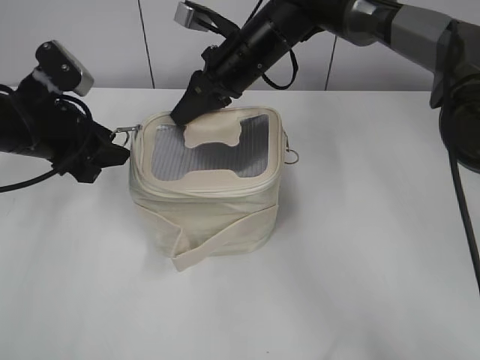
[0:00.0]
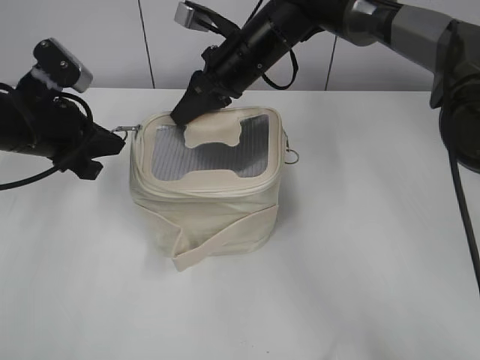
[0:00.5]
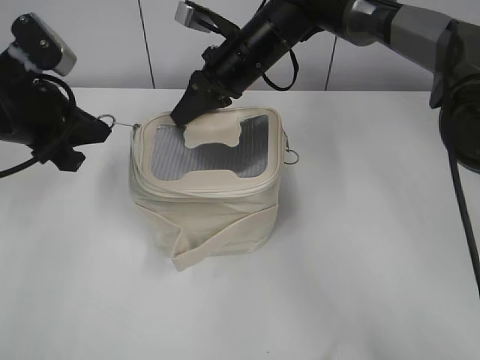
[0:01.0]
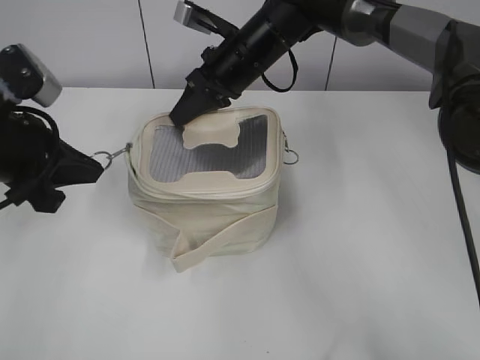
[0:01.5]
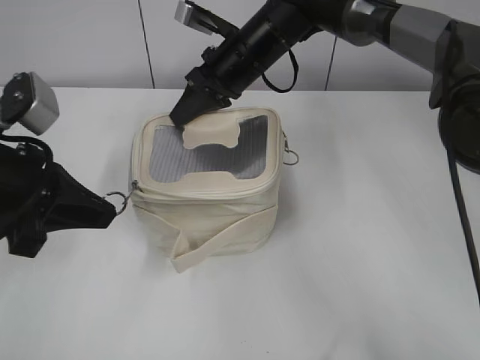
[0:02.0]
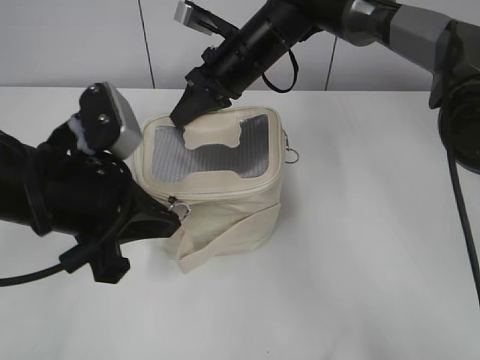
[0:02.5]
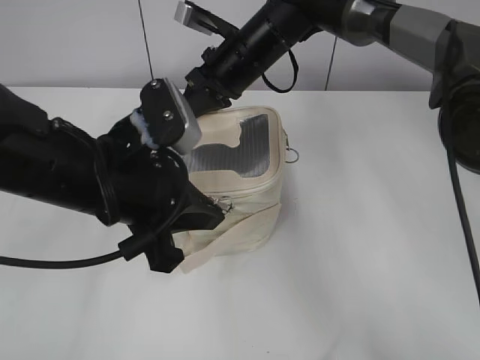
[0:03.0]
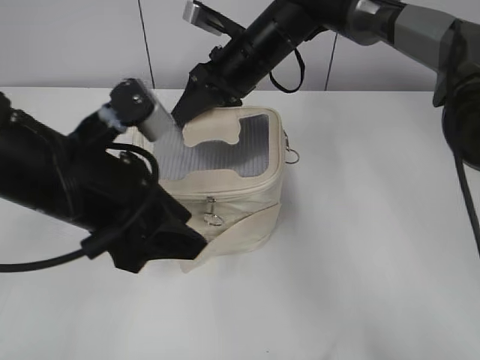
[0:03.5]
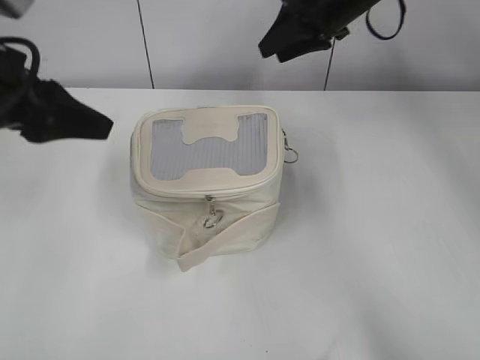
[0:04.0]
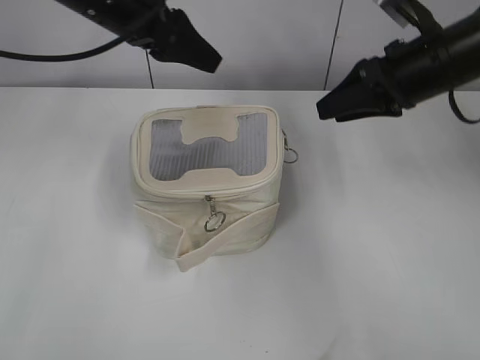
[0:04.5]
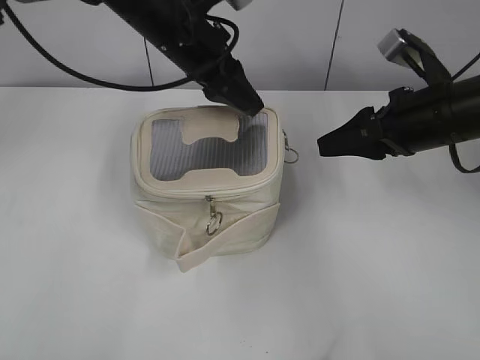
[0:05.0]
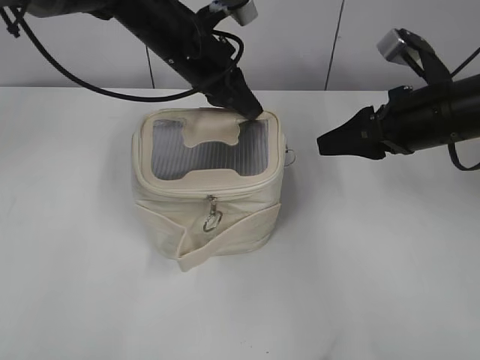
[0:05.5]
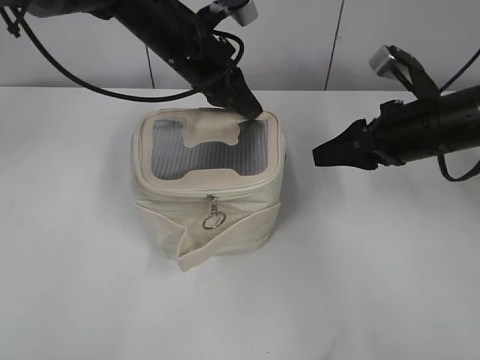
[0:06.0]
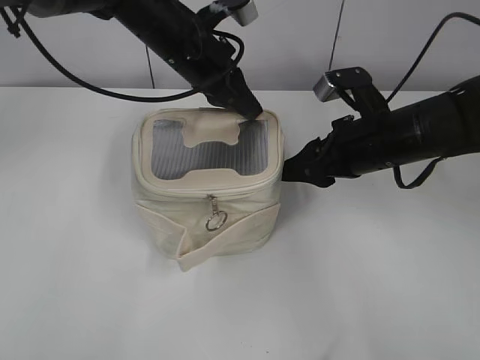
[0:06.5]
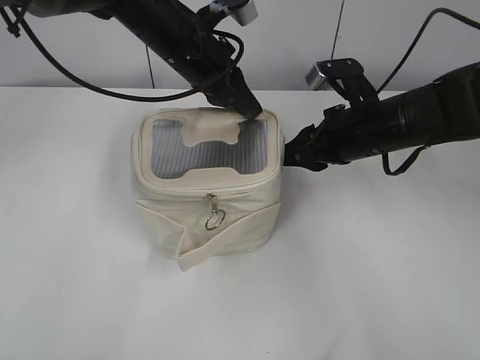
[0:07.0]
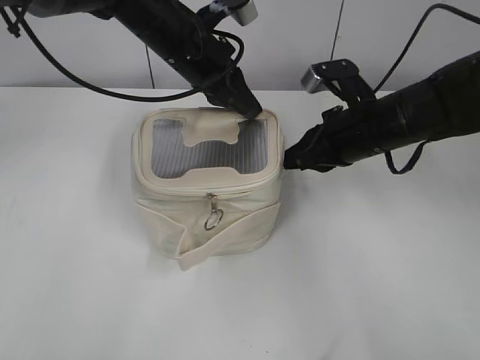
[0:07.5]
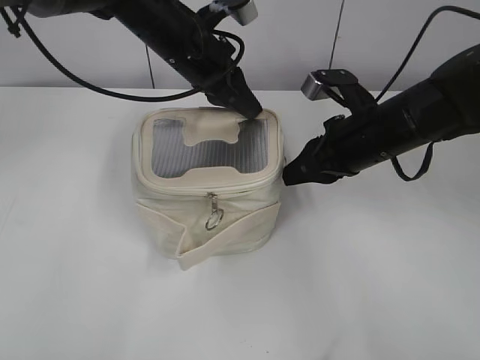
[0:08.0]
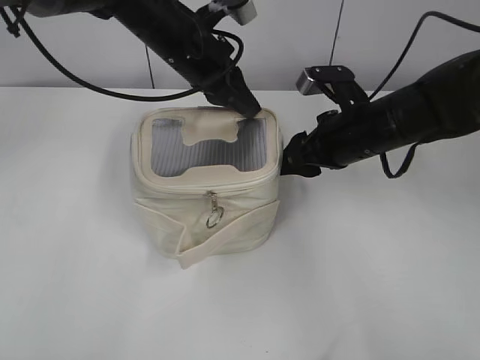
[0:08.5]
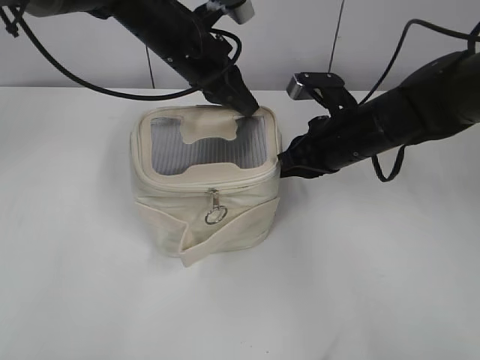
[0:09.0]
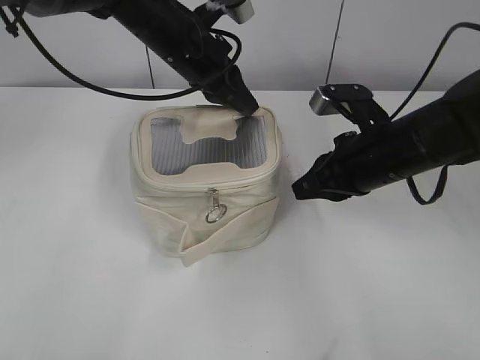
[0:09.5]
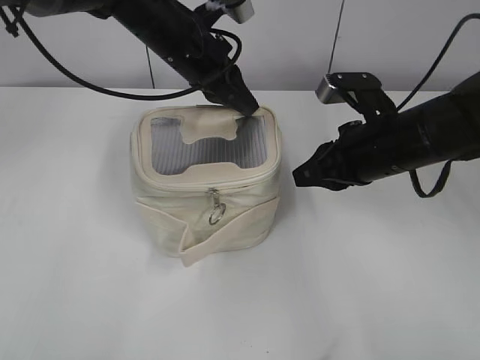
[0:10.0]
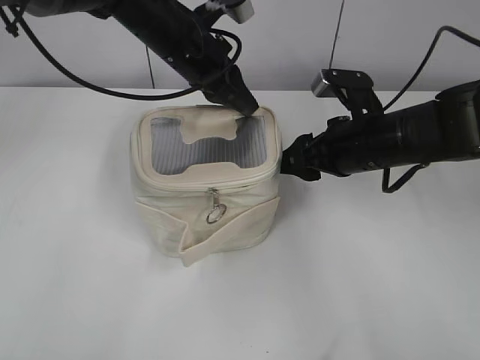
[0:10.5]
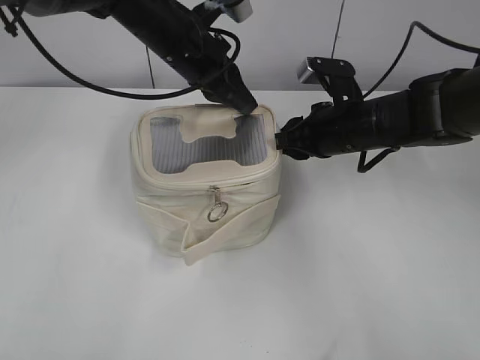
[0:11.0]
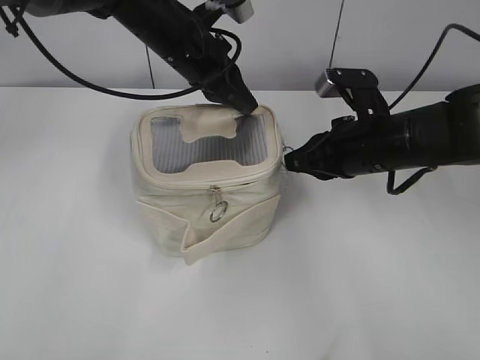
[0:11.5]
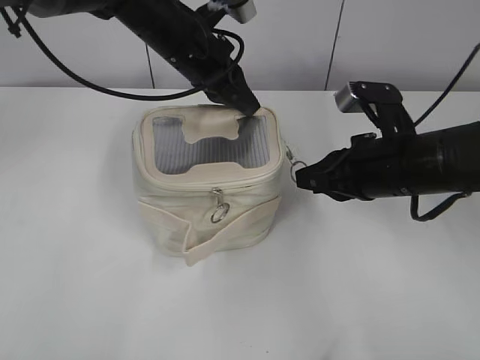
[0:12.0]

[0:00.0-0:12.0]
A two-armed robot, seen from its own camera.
Step, 0:00.0 to 0:03.0: Zip up the bag with your left hand.
0:00.0 to 0:02.0: The left gripper goes about 10 cm backward, and closes.
0:02.0 to 0:04.0: The left gripper heads upward, covering about 5 cm, reaches about 10 cm to the right, then returns, and opens up, while the right gripper shifts roughly 15 cm to the right and upward, and opens up.
0:04.0 to 0:06.0: The right gripper moves backward, to the right and downward, roughly 20 cm. Meanwhile the left gripper is displaced to the right and forward by roughly 25 cm, and closes its fingers.
0:06.0 to 0:08.0: The right gripper travels to the left by roughly 5 cm, and closes up.
0:08.0 to 0:10.0: The right gripper opens, then closes again.
0:10.0 to 0:12.0: The right gripper goes forward and returns, about 5 cm each way, and opens, then closes again.

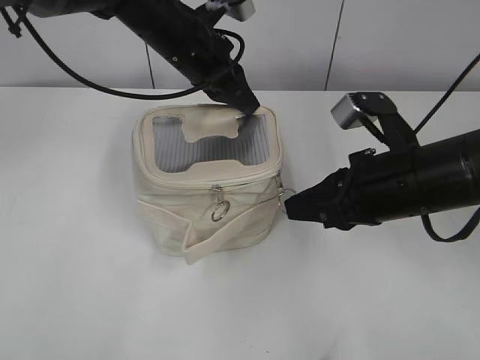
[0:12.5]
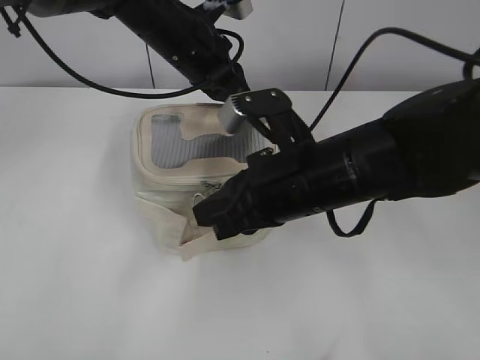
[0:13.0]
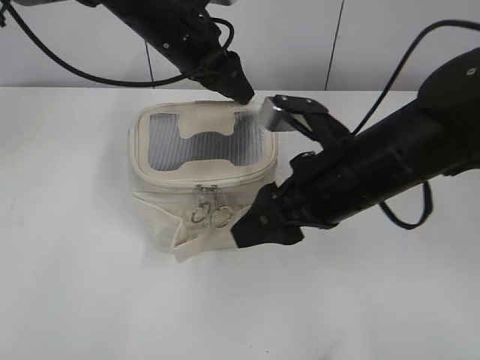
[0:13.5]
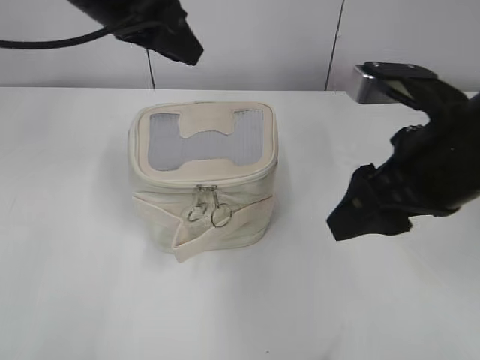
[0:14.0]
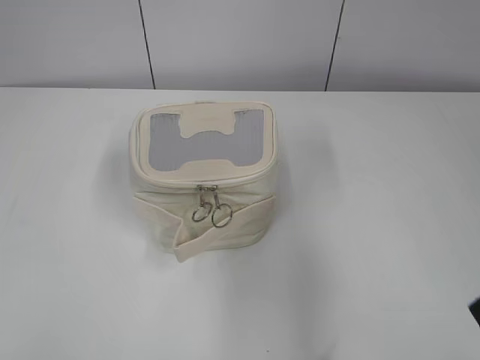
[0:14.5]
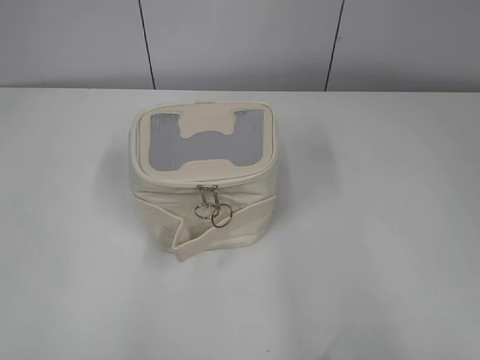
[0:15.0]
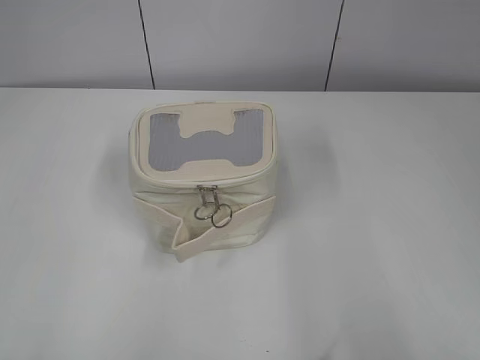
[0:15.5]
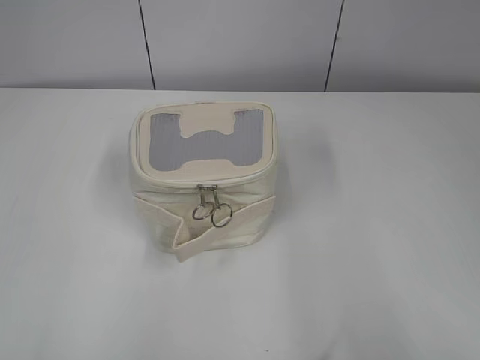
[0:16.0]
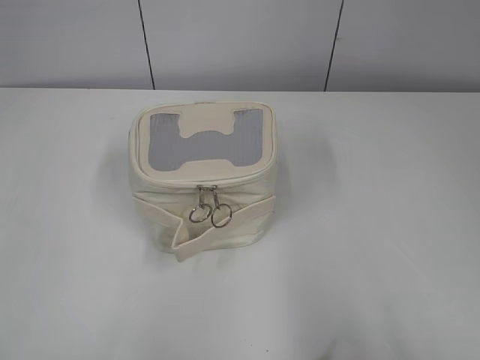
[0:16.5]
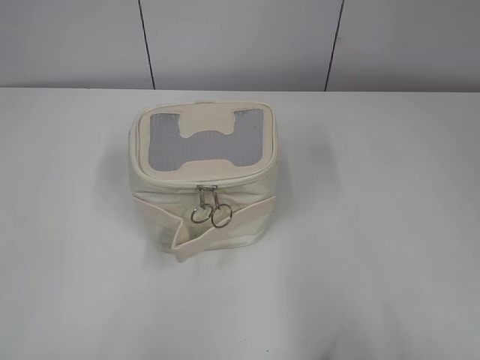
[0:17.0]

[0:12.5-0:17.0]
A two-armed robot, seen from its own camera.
0:12.5 to 0:14.5: The right gripper goes approximately 20 cm backward, upward and to the right, and opens; the left gripper heads backward and to the left, covering some 35 cm, and opens its fingers.
0:14.5 to 0:17.0: The right gripper heads backward and to the right, covering some 15 cm. Meanwhile the left gripper shifts about 15 cm backward, to the left and downward.

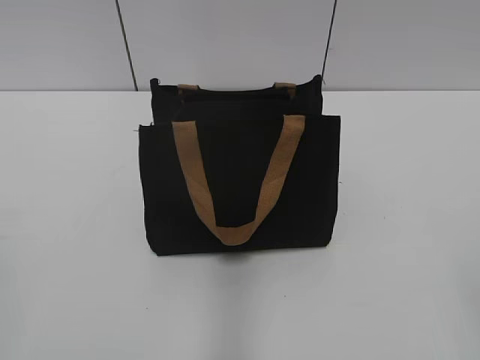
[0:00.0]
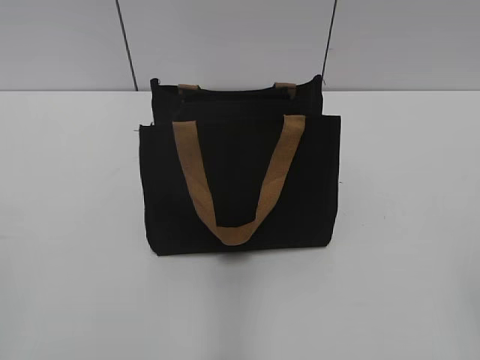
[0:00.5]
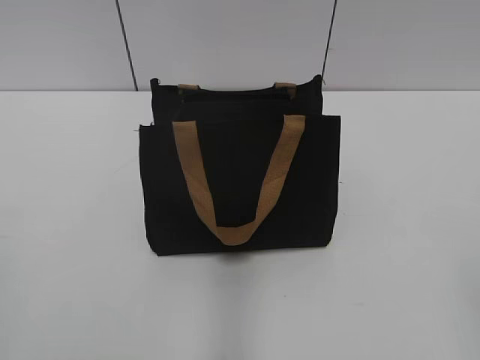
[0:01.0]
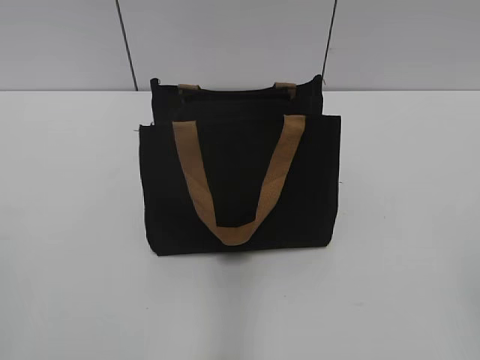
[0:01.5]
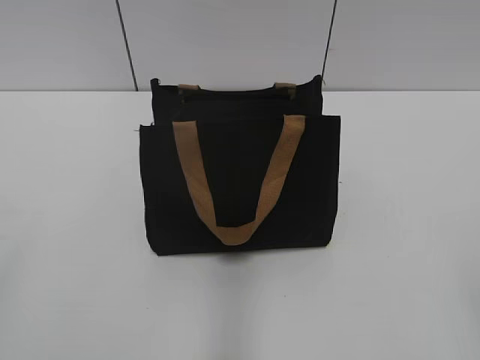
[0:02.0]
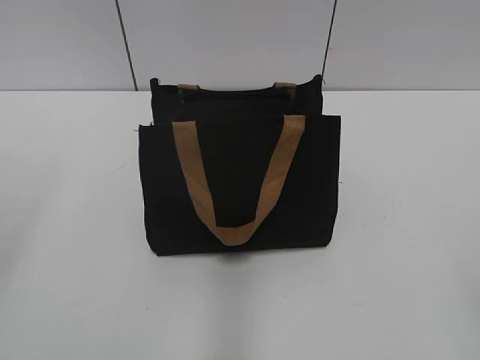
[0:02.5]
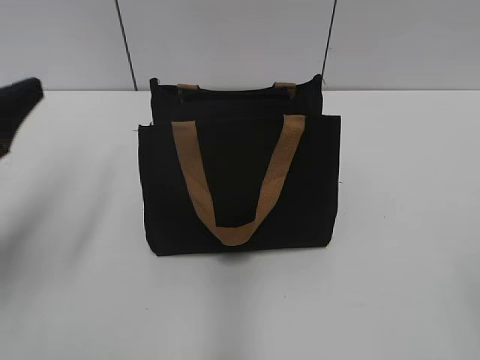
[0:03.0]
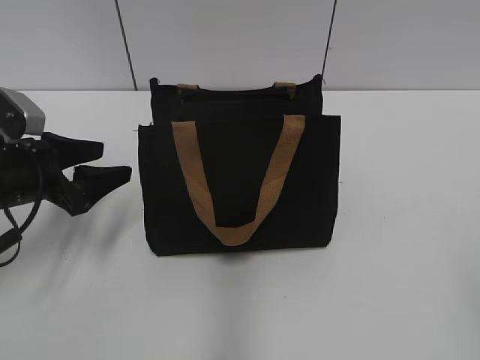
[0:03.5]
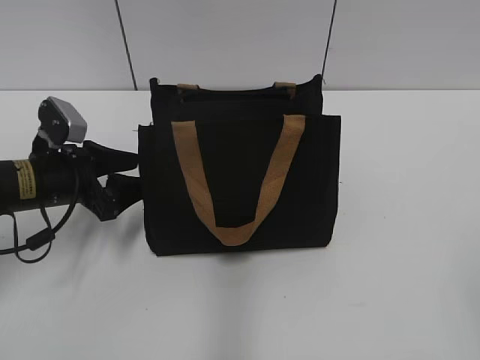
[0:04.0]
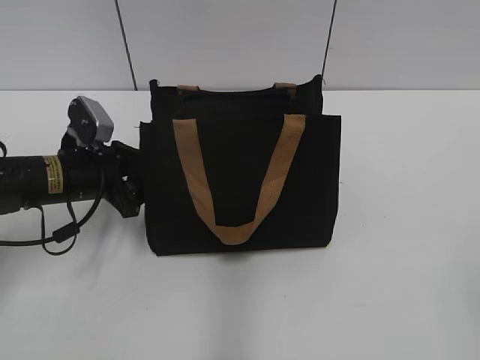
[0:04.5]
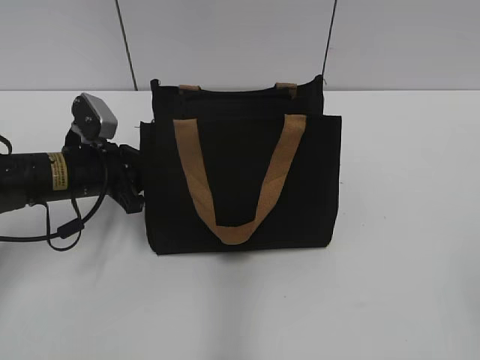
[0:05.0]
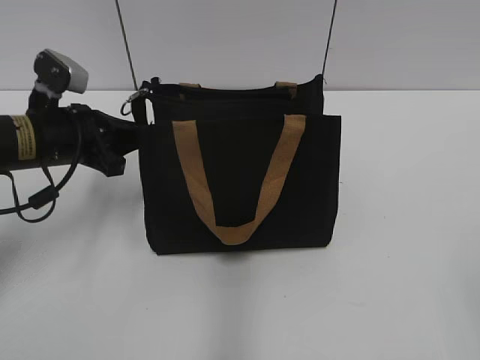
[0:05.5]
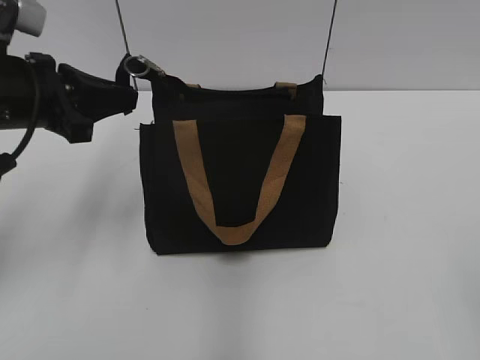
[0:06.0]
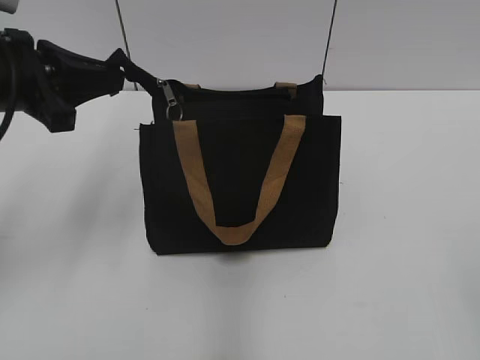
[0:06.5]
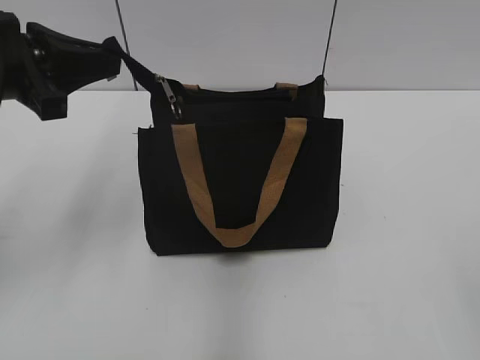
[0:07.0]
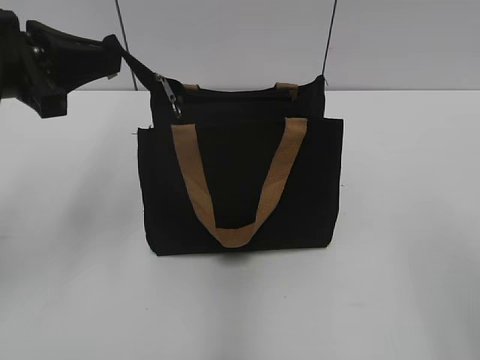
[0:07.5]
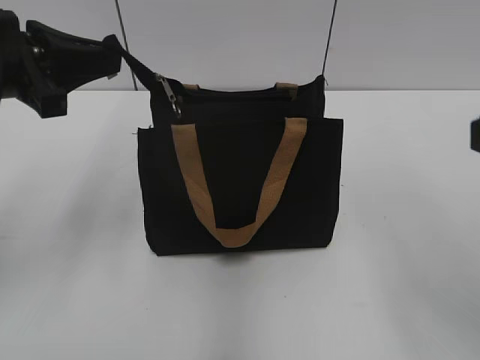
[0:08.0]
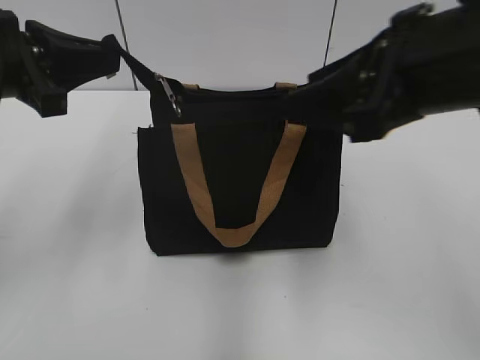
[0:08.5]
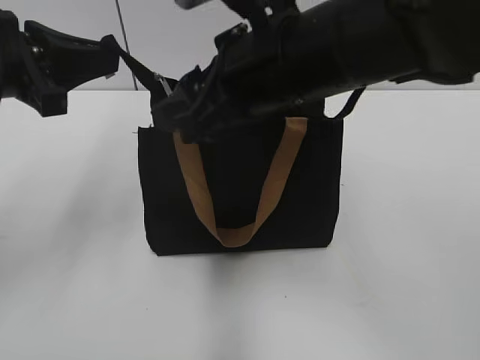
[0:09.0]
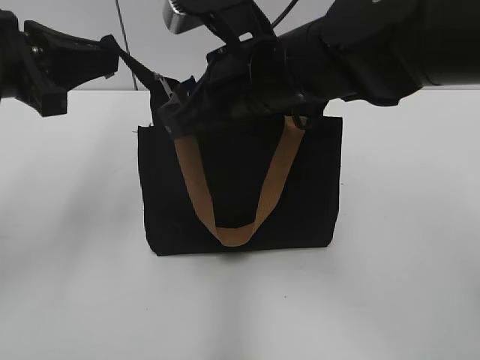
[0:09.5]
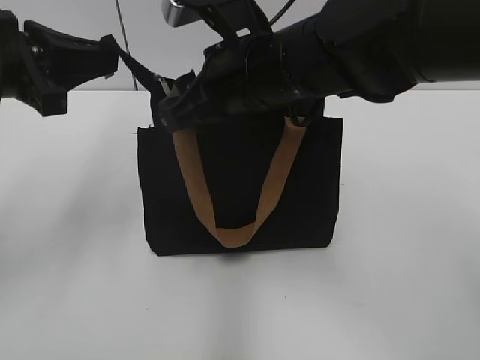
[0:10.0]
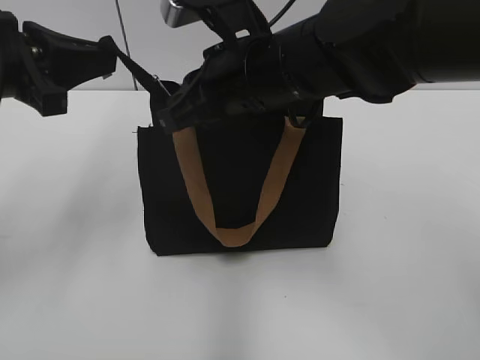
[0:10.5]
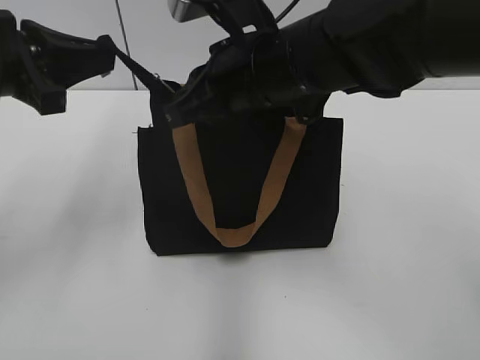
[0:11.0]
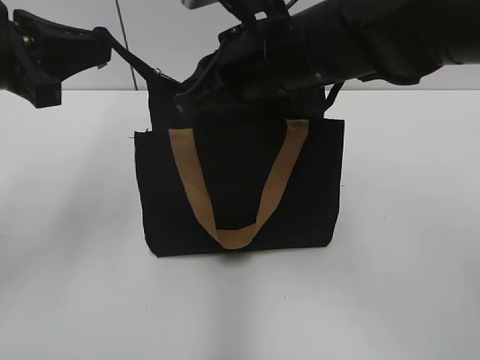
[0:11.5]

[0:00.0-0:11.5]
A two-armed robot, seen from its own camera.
0:02.0 to 0:04.0: The left gripper goes roughly 35 cm forward and downward.
0:04.0 to 0:06.0: The left gripper moves upward, roughly 10 cm, and closes.
0:06.0 to 0:07.5: The left gripper shifts about 5 cm upward.
0:07.5 to 0:09.5: The right gripper travels forward and to the left by some 35 cm.
0:09.5 to 0:11.5: The right gripper closes up.
